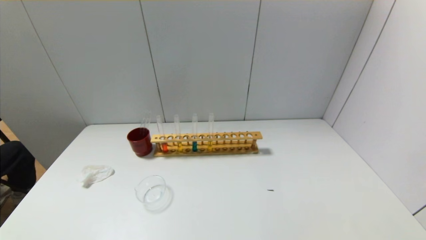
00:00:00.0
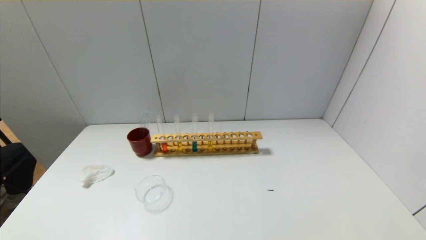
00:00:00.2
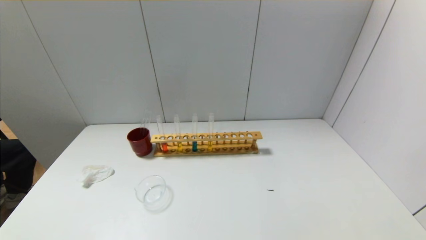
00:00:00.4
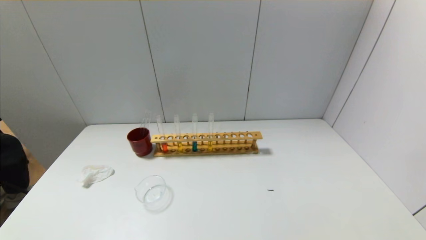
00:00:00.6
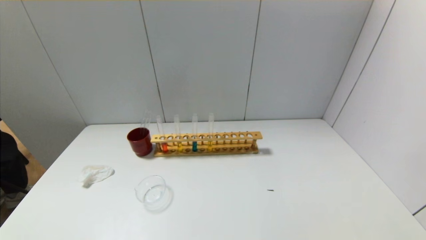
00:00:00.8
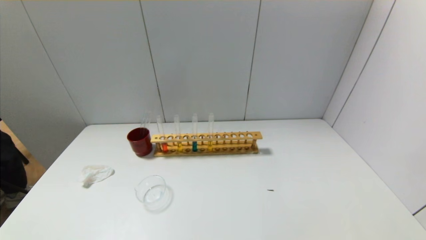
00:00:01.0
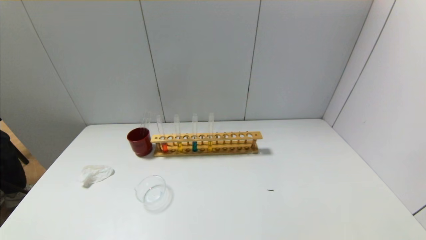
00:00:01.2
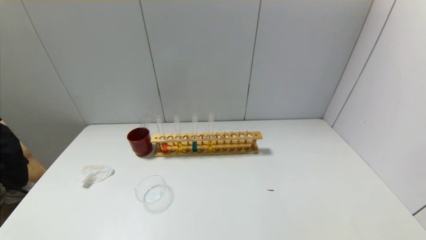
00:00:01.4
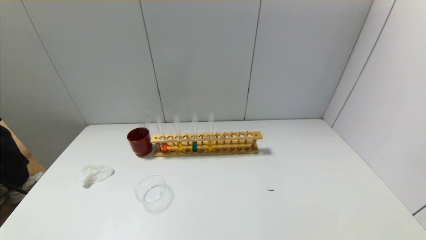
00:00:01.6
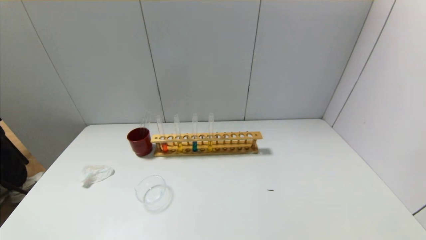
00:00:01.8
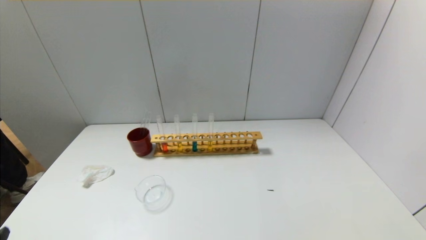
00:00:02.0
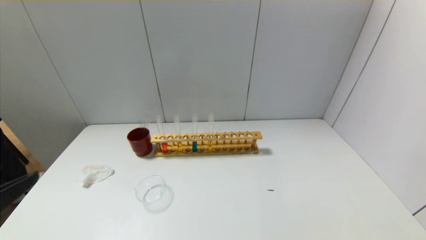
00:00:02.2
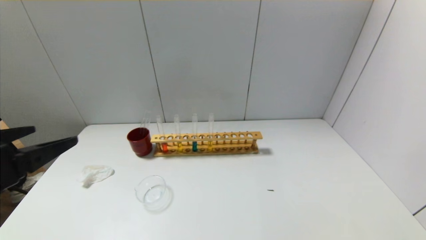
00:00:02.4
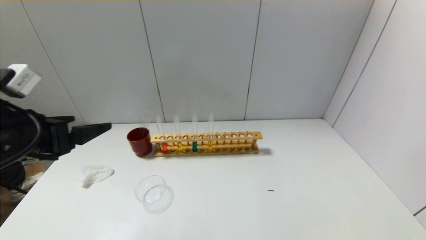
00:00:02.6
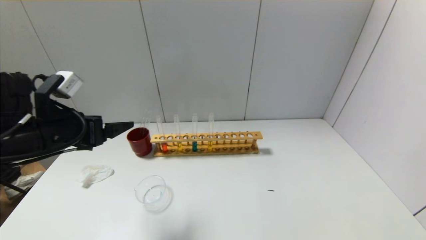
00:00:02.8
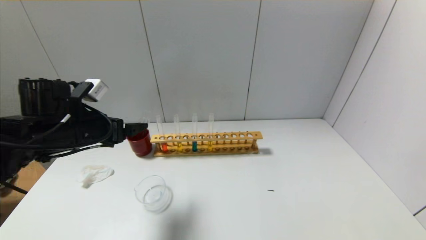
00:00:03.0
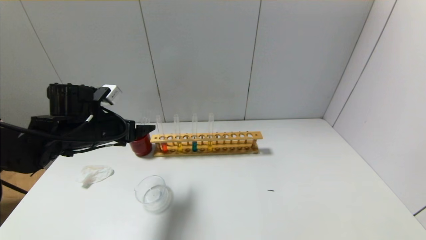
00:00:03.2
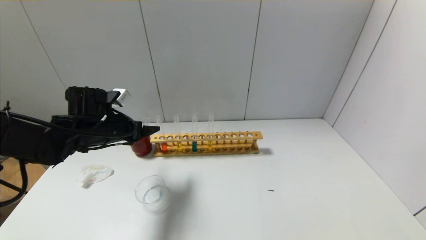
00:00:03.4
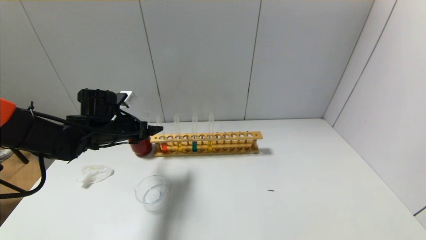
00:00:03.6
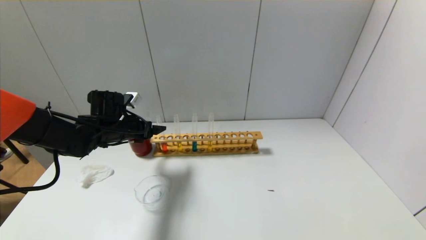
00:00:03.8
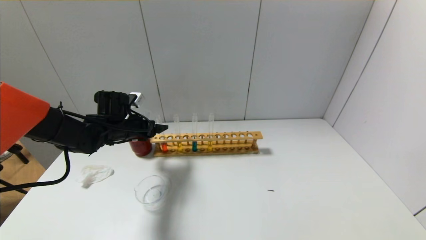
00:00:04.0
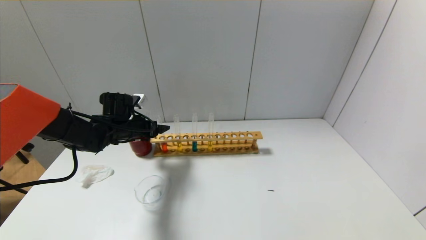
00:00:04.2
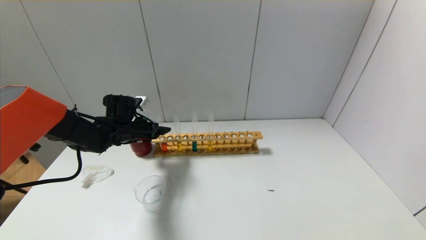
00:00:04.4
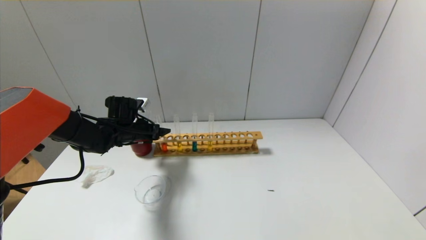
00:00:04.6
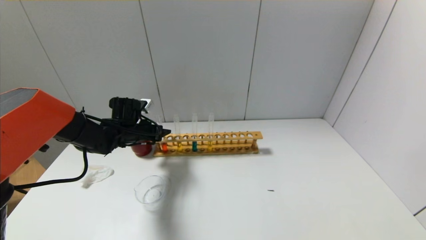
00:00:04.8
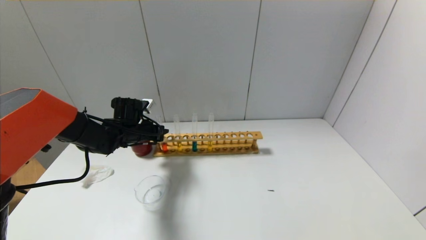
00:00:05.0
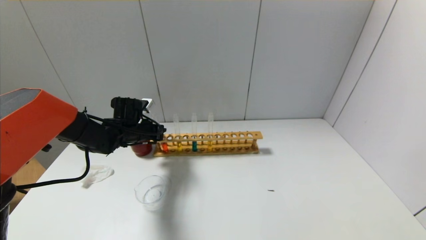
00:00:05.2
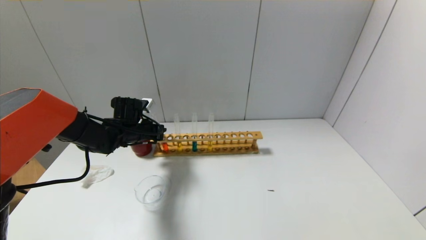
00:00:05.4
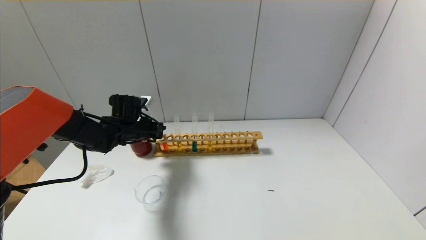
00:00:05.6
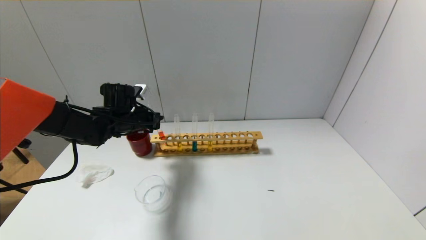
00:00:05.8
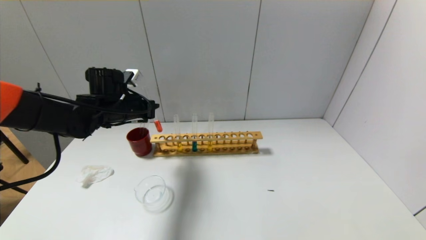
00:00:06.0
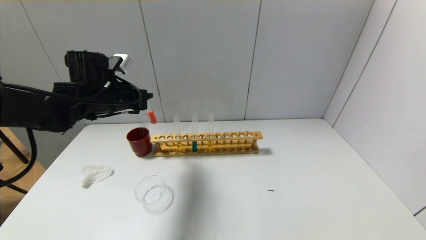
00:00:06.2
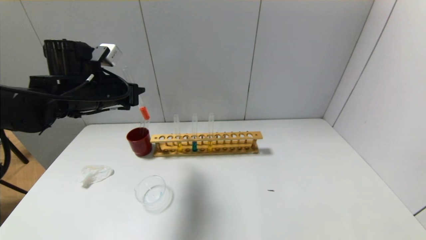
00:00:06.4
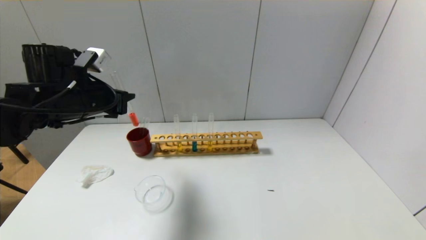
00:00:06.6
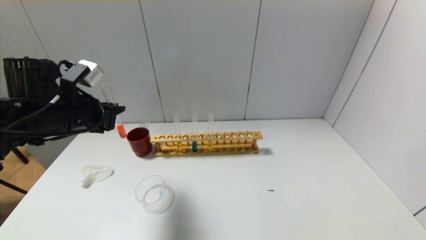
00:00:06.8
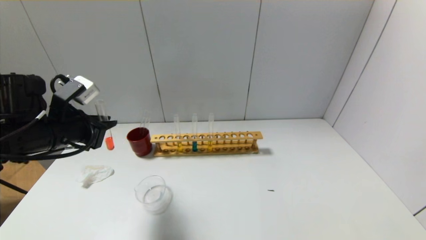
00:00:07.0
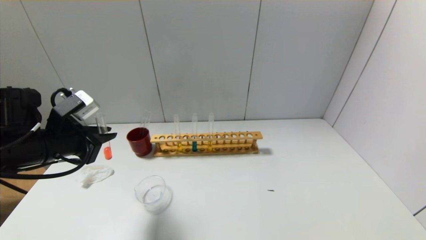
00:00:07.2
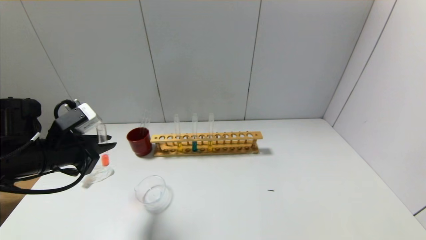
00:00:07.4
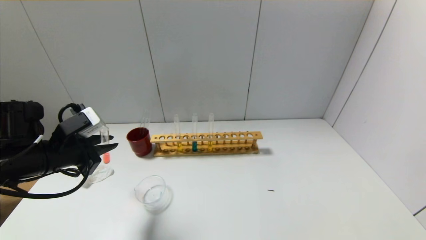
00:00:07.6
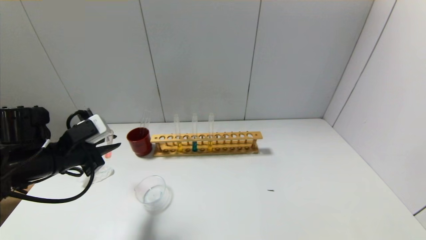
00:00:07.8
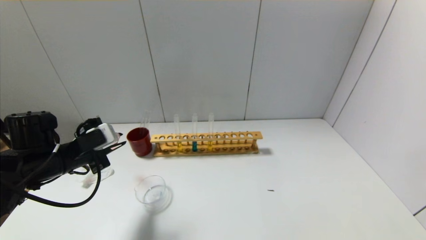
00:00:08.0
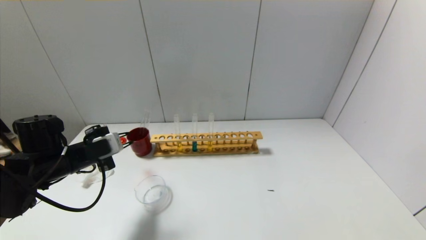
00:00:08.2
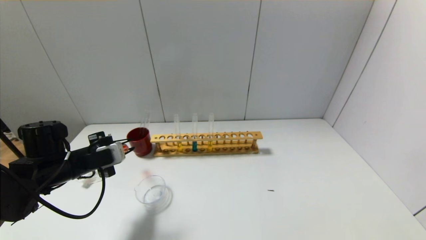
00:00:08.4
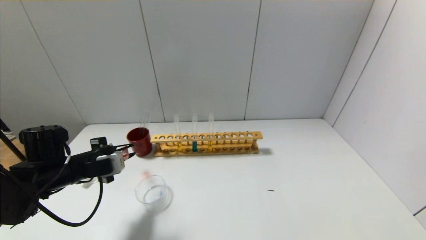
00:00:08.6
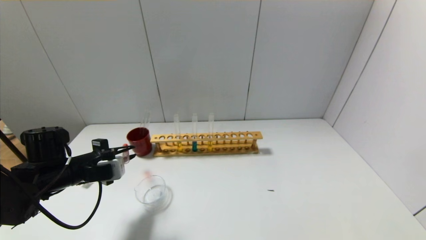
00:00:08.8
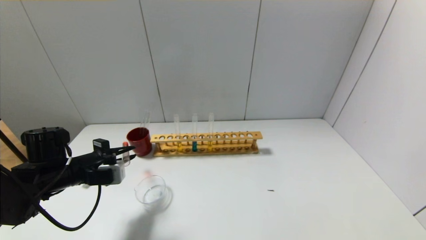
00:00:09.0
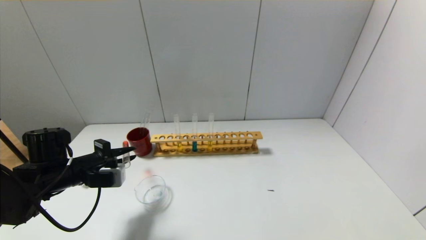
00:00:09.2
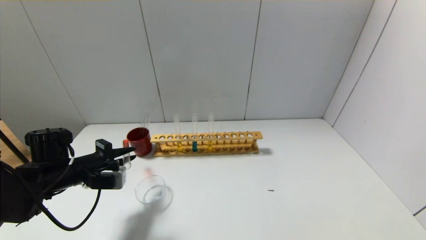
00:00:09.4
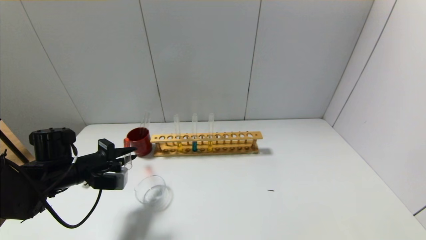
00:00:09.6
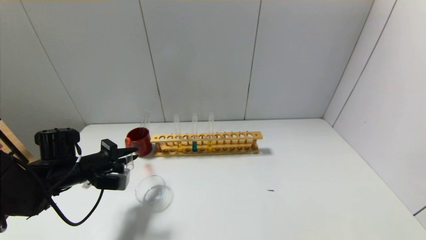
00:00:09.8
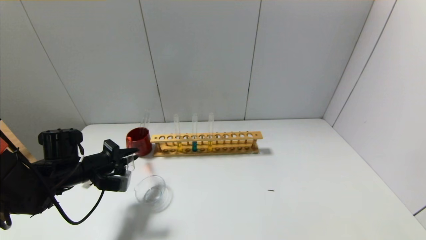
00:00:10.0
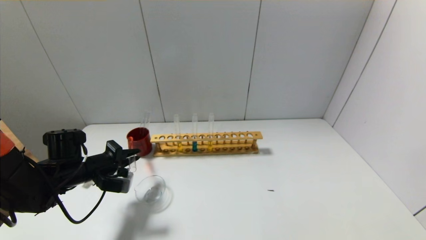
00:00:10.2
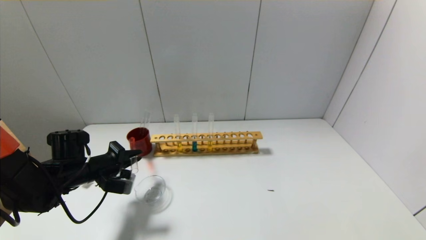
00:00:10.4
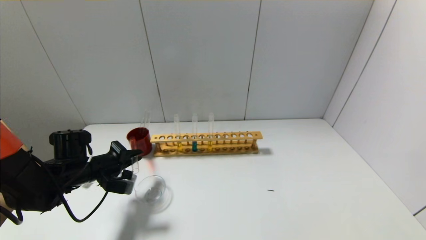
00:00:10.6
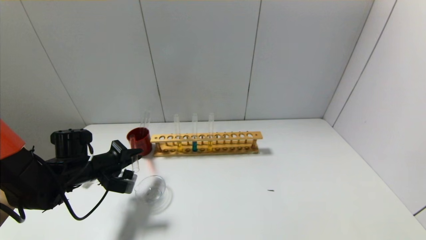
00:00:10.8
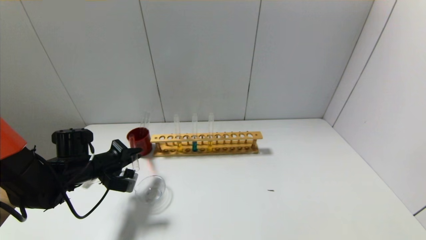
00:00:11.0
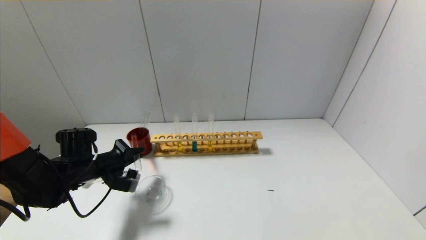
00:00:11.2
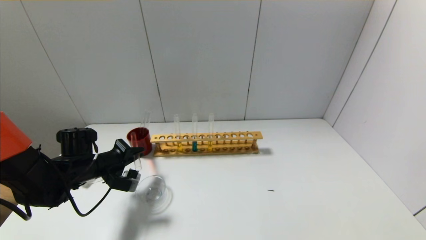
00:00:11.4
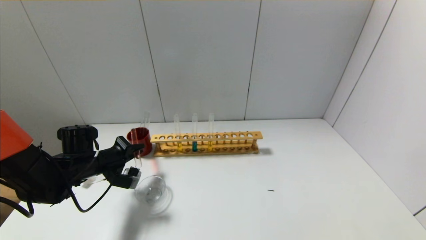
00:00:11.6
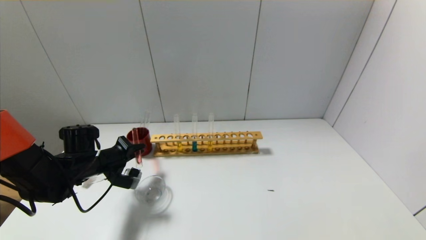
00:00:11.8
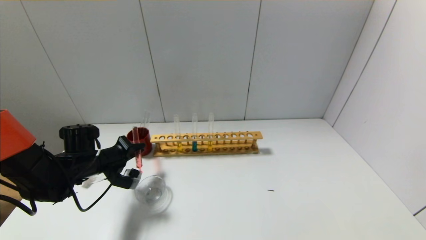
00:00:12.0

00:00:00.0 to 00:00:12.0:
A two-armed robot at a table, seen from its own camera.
Step, 00:00:00.0 to 00:00:05.2: Grasp the red reagent with the left gripper.
00:00:00.0 to 00:00:01.6: The left gripper is displaced upward by roughly 5 cm.
00:00:01.6 to 00:00:03.0: The left gripper heads forward, covering approximately 35 cm.
00:00:03.0 to 00:00:04.4: The left gripper moves forward and downward, roughly 15 cm.
00:00:04.4 to 00:00:06.0: The left gripper heads upward, covering roughly 10 cm, and closes.
00:00:06.0 to 00:00:07.6: The left gripper shifts roughly 15 cm backward and to the left.
00:00:07.6 to 00:00:09.0: The left gripper is displaced downward by about 5 cm.
00:00:10.4 to 00:00:12.0: The grippers move only a little.

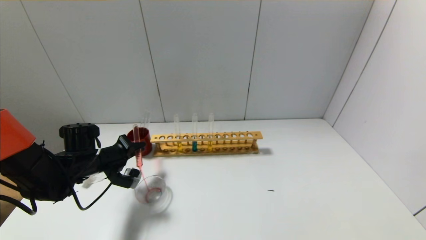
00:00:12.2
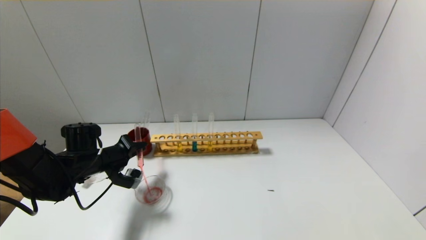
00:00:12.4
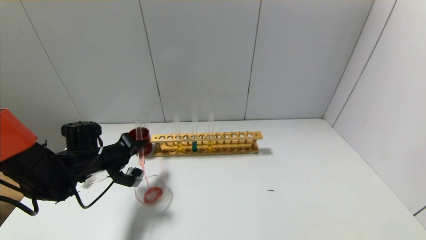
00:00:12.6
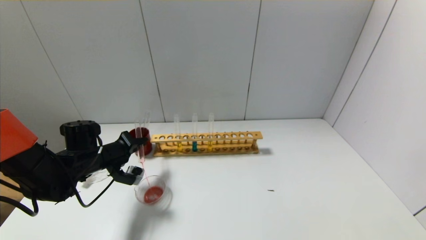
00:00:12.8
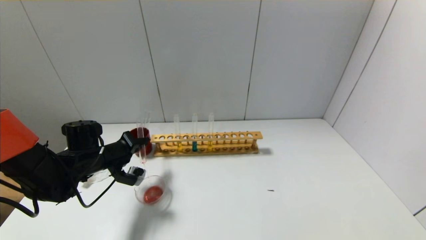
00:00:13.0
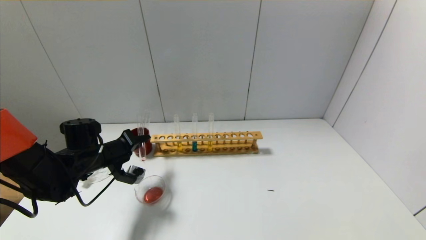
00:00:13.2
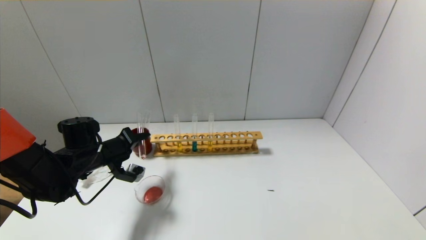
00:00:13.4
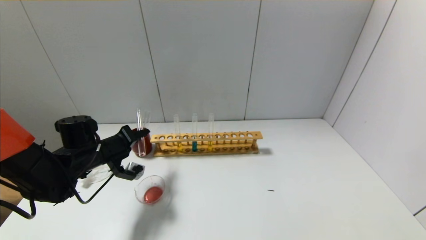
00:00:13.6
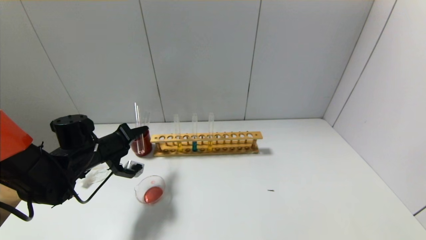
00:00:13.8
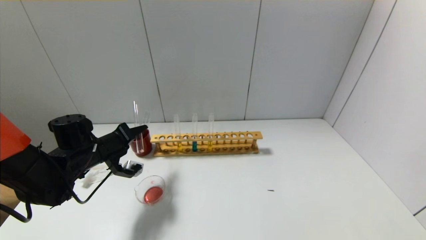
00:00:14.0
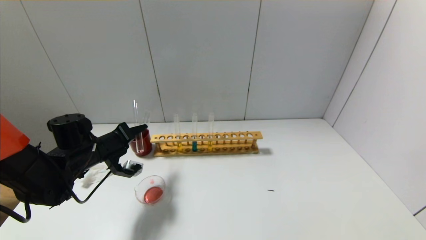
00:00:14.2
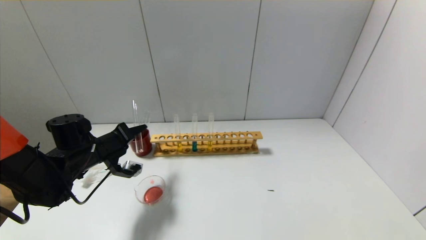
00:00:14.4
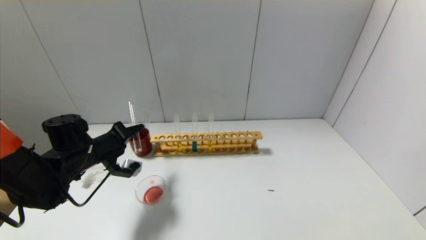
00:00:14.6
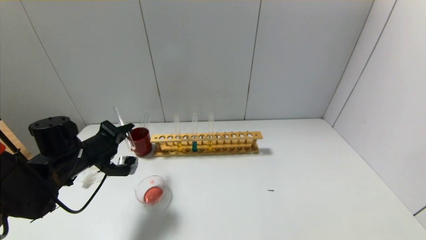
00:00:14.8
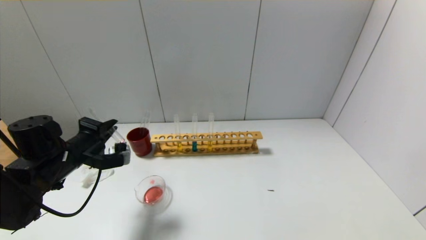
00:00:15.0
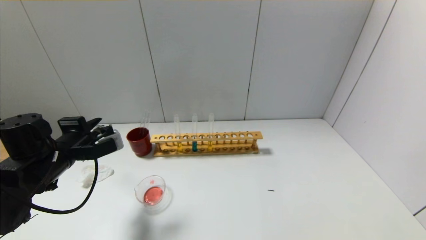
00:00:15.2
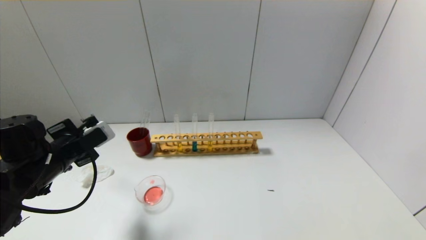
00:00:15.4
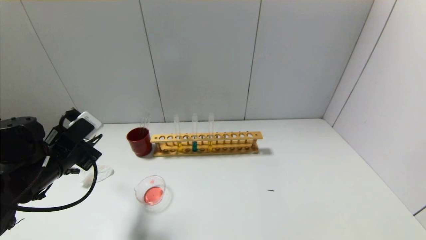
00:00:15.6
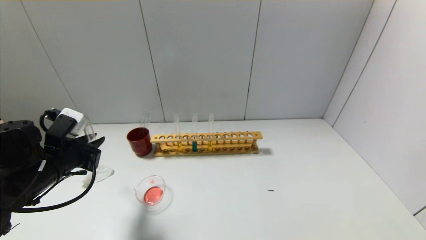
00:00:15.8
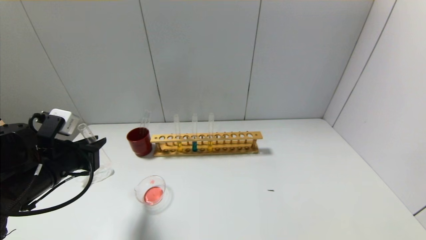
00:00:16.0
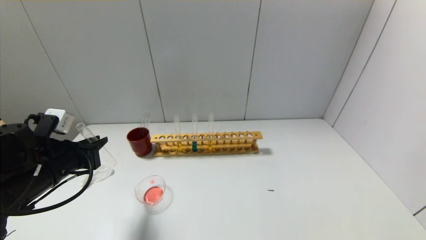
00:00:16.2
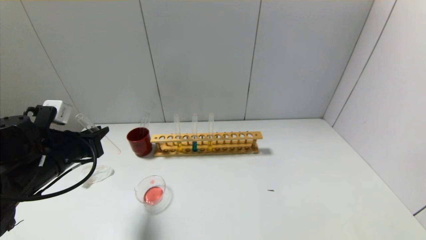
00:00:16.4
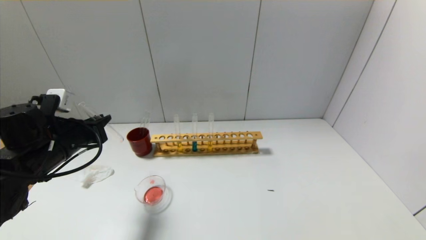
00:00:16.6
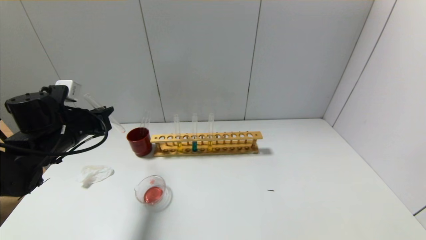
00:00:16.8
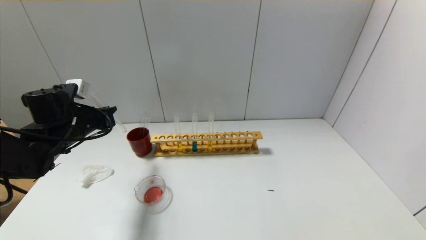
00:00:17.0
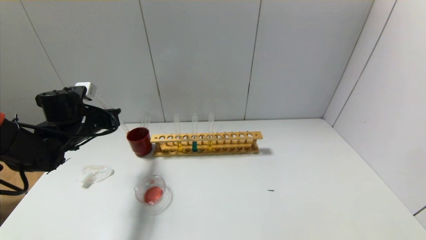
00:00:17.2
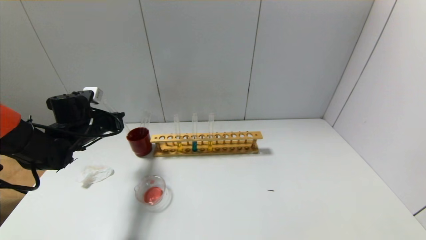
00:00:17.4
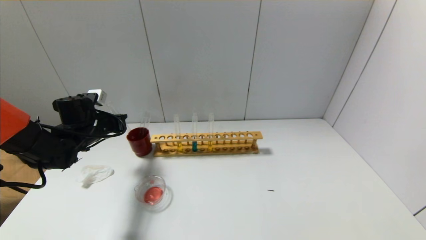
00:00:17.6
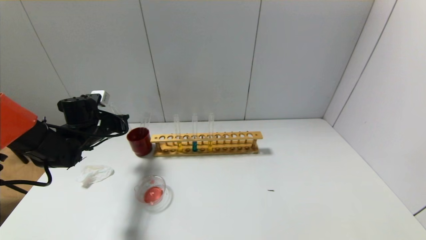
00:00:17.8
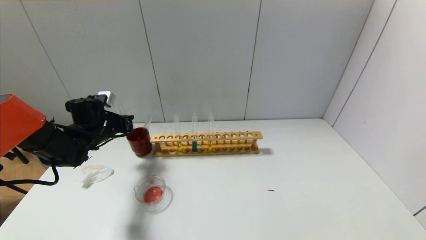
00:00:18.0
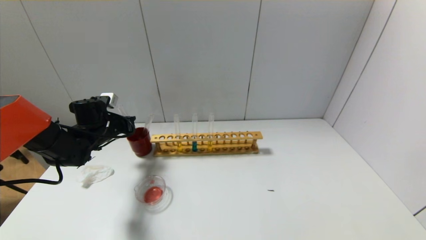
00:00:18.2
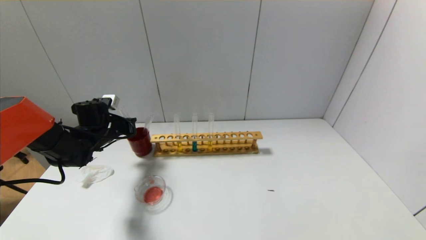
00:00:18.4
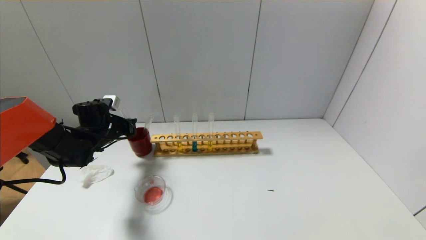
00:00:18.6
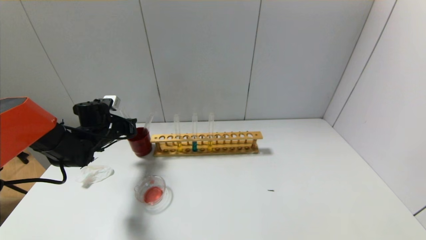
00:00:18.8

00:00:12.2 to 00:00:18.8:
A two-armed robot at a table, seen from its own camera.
Step, 00:00:12.2 to 00:00:14.8: Pour the red reagent into the graduated cylinder with the left gripper.
00:00:12.2 to 00:00:13.8: There are only small adjustments of the grippers.
00:00:13.8 to 00:00:15.4: The left gripper is displaced backward by approximately 10 cm.
00:00:15.4 to 00:00:17.2: The left gripper is displaced forward by about 10 cm.
00:00:17.2 to 00:00:18.8: The left gripper shifts roughly 5 cm downward and forward.
